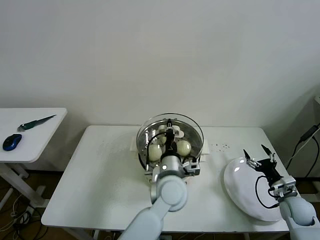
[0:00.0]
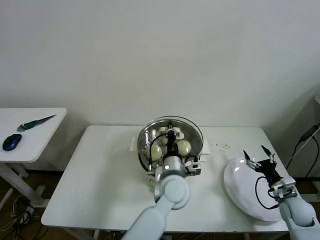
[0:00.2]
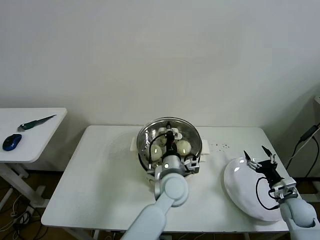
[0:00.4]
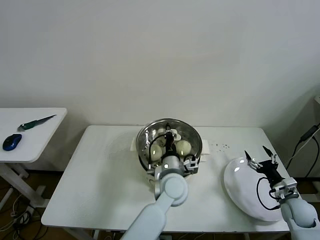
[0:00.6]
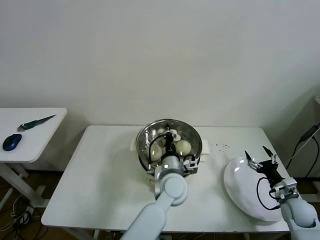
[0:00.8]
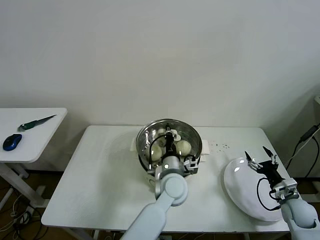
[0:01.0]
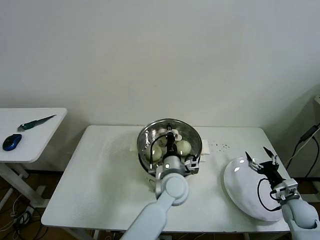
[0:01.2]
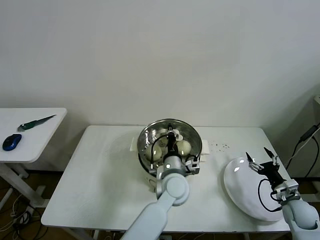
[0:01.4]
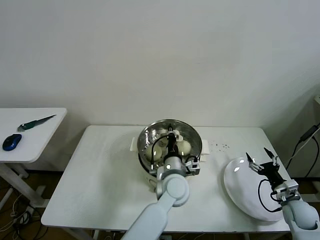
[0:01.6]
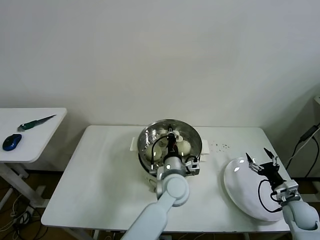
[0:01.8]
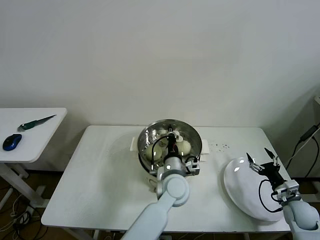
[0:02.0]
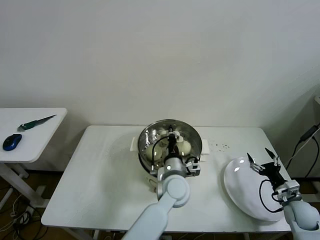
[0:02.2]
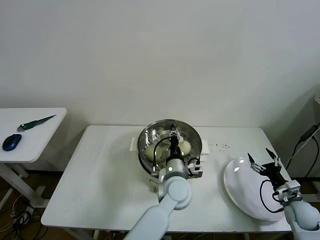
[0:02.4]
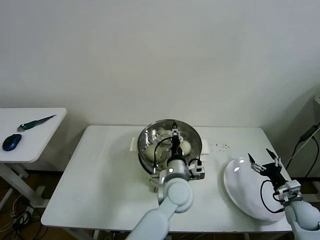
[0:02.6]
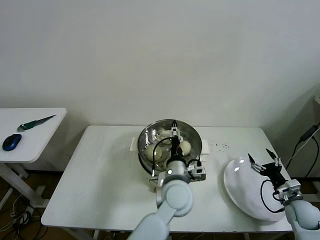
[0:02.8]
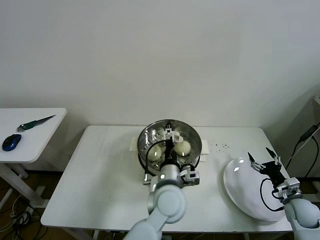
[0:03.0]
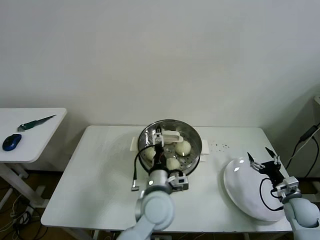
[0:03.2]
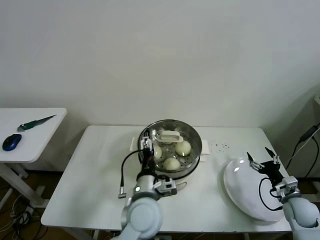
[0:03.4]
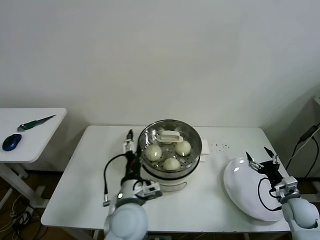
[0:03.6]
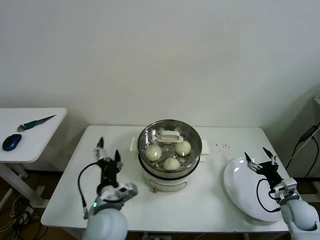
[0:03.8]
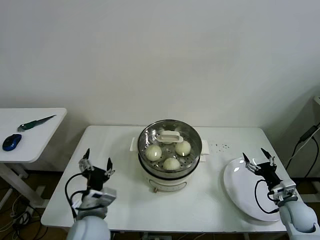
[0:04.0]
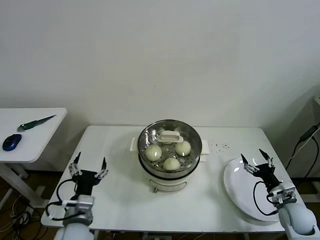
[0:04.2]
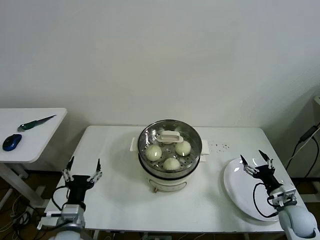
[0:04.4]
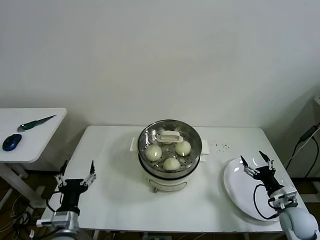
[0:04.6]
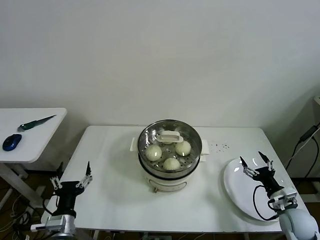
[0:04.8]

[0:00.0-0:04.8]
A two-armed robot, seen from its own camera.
Task of the whole recording: take steamed baozi put them in steamer then cover it.
Step, 0:00.0 to 0:02.2: Place the pot lid on the steamer with left gripper.
0:00.0 to 0:01.6: The left gripper changes place by approximately 5 cm.
0:01.6 to 0:03.2: The left gripper shifts some 5 cm backward, and opens.
0:03.2 to 0:04.8: The left gripper shifts about 25 cm to the left, while the right gripper changes place by approximately 5 cm.
